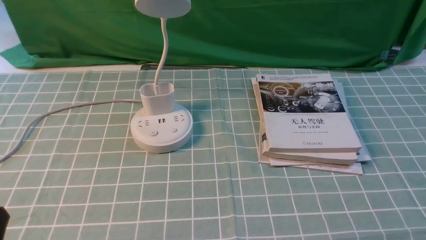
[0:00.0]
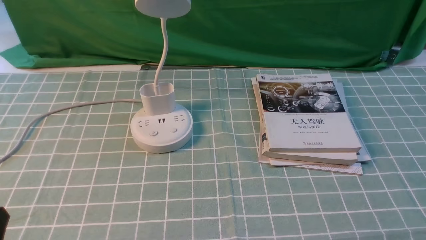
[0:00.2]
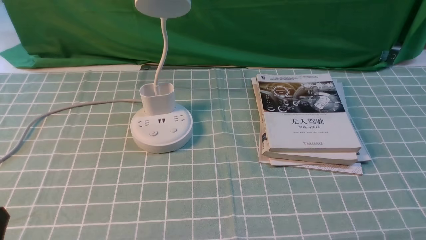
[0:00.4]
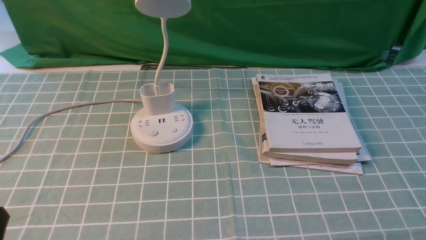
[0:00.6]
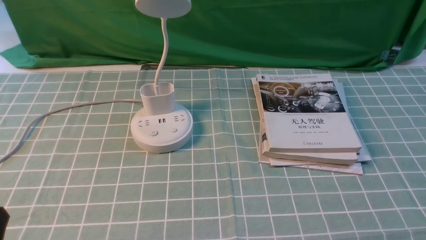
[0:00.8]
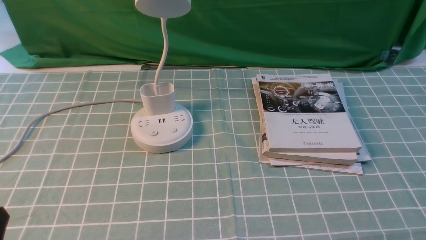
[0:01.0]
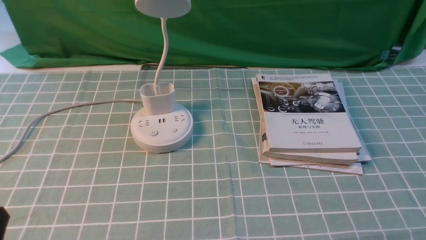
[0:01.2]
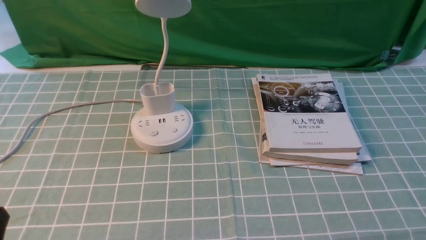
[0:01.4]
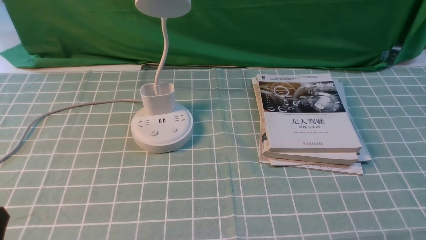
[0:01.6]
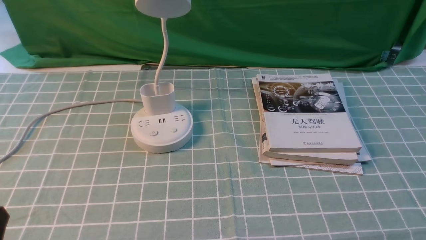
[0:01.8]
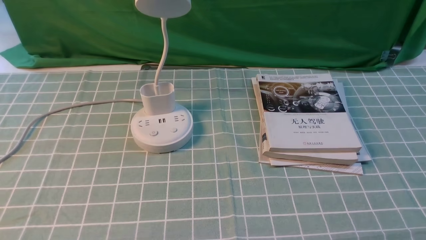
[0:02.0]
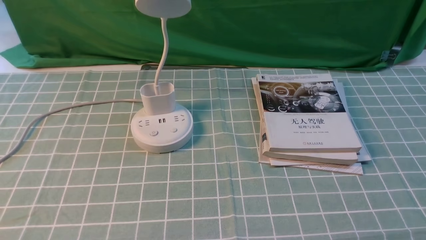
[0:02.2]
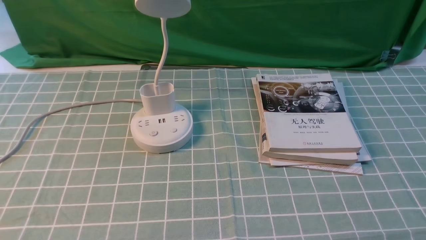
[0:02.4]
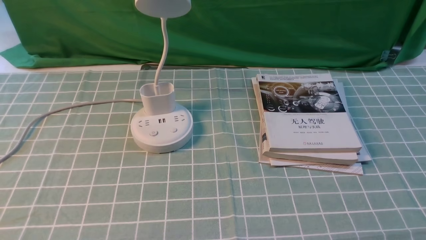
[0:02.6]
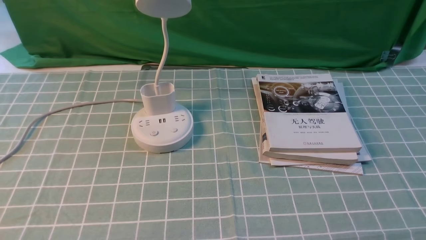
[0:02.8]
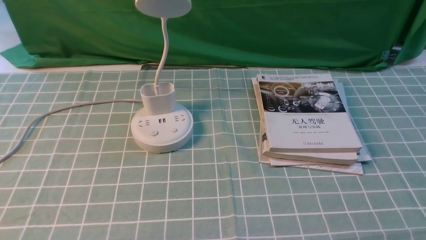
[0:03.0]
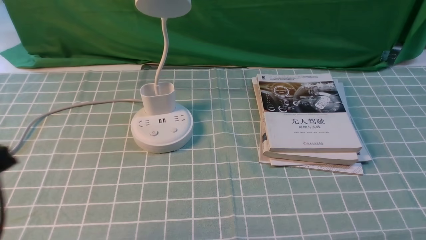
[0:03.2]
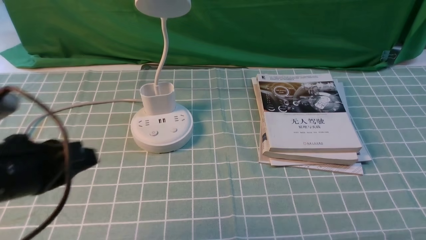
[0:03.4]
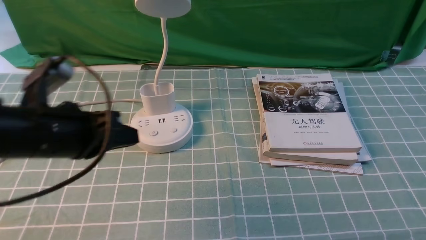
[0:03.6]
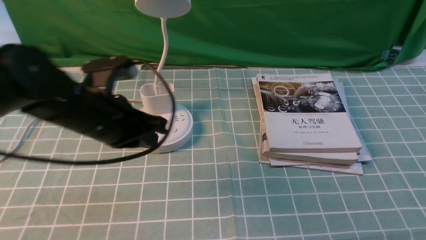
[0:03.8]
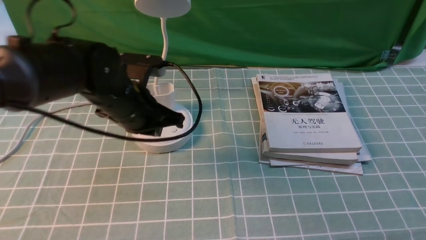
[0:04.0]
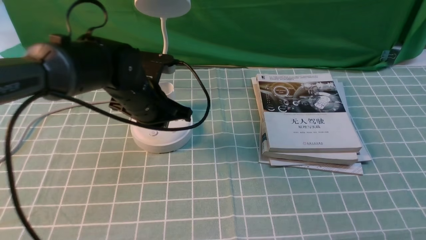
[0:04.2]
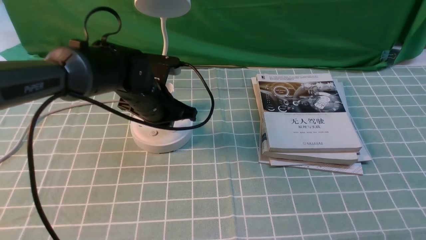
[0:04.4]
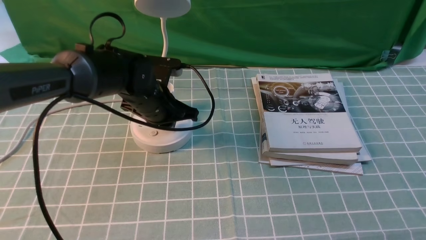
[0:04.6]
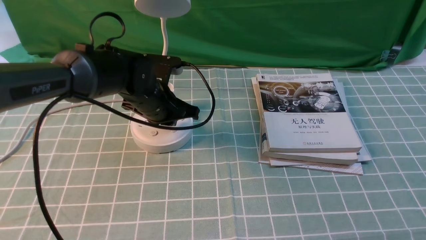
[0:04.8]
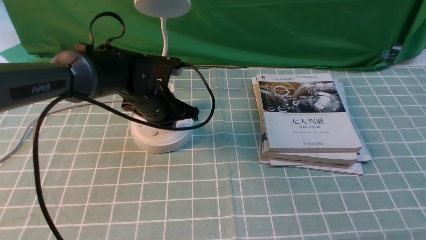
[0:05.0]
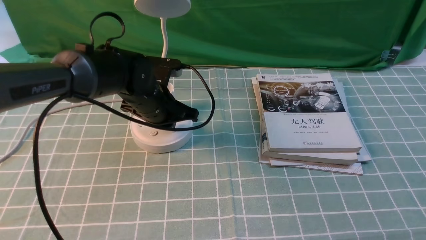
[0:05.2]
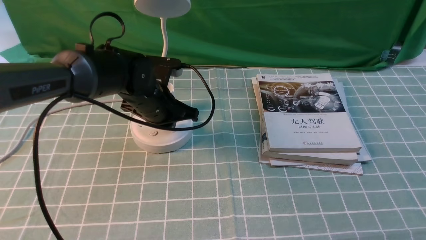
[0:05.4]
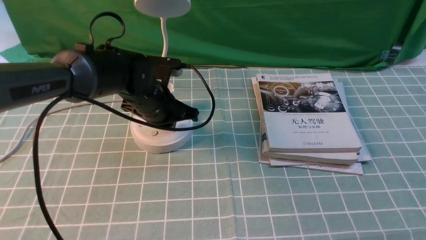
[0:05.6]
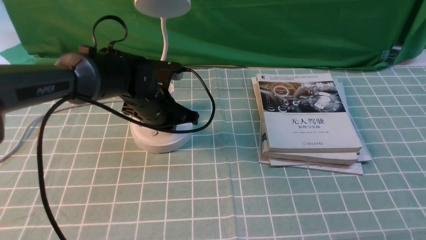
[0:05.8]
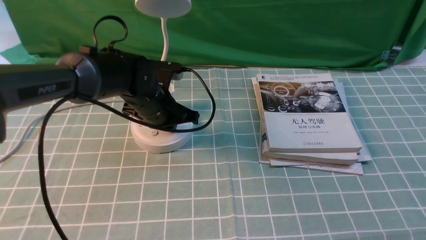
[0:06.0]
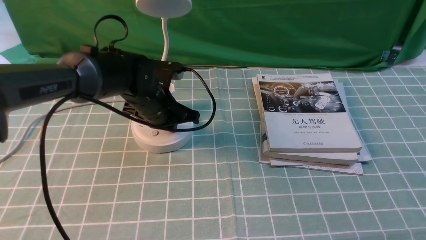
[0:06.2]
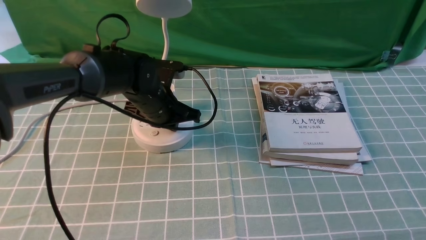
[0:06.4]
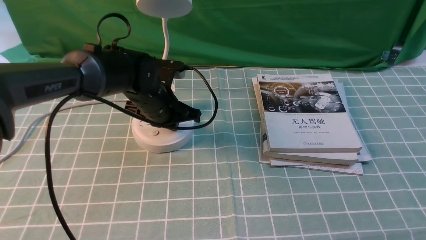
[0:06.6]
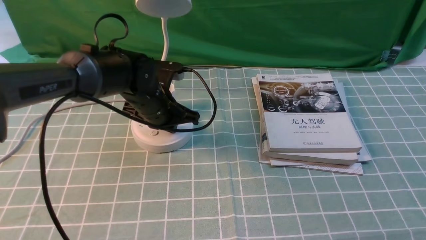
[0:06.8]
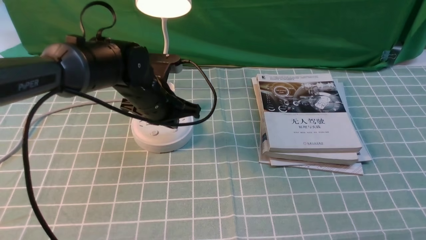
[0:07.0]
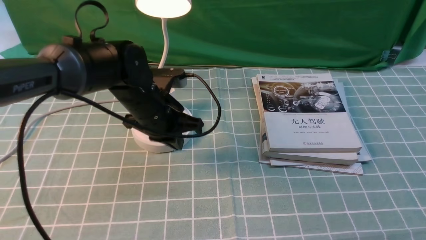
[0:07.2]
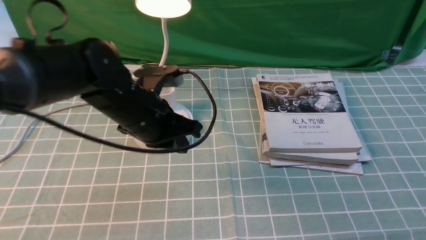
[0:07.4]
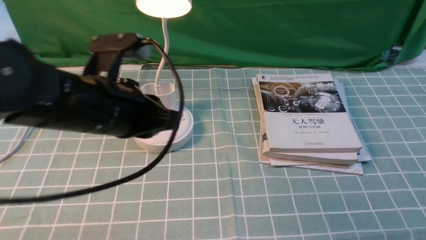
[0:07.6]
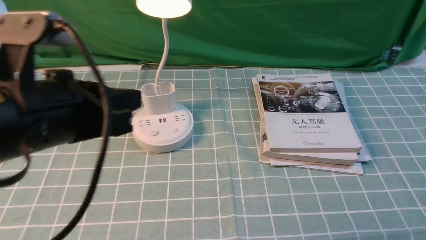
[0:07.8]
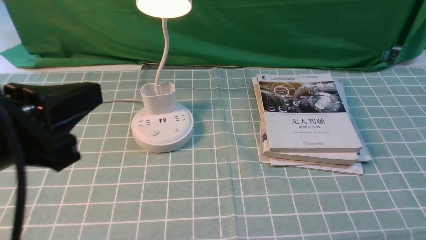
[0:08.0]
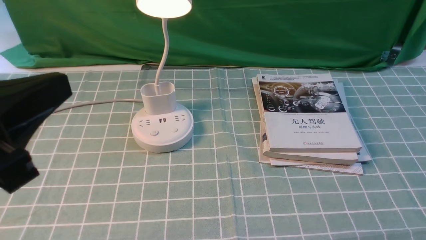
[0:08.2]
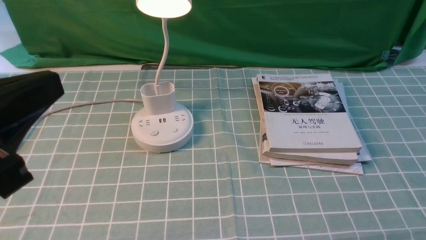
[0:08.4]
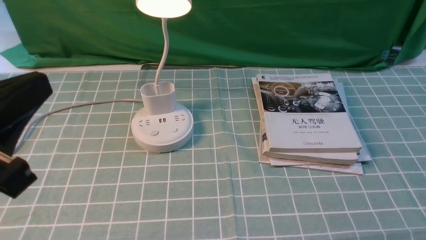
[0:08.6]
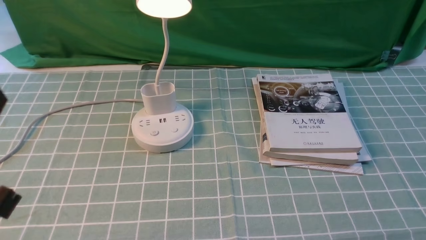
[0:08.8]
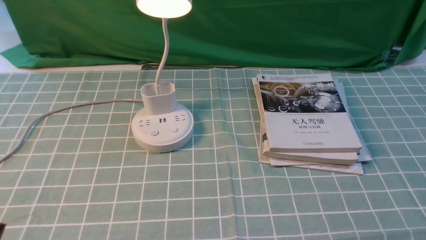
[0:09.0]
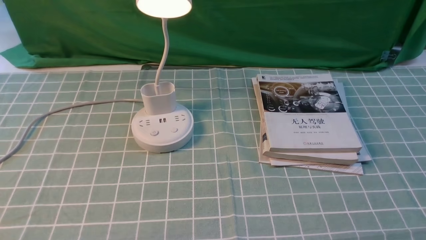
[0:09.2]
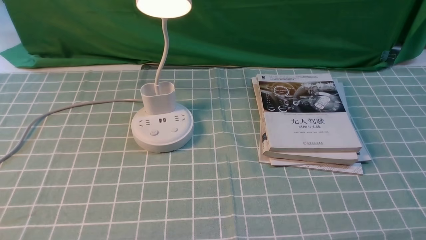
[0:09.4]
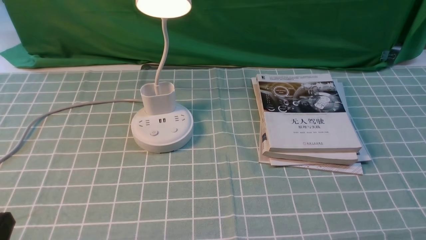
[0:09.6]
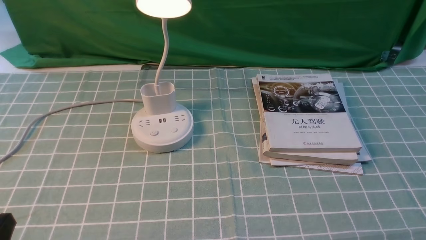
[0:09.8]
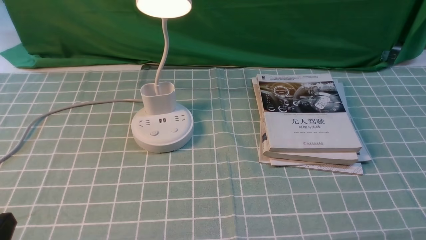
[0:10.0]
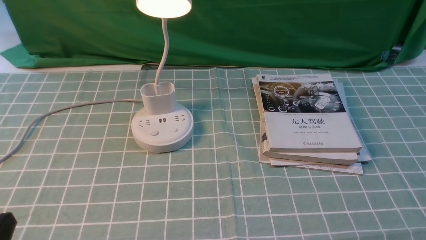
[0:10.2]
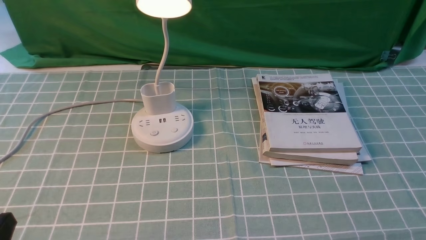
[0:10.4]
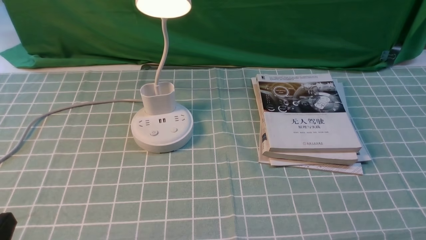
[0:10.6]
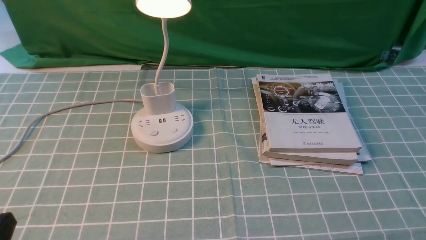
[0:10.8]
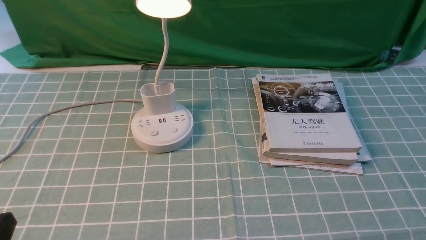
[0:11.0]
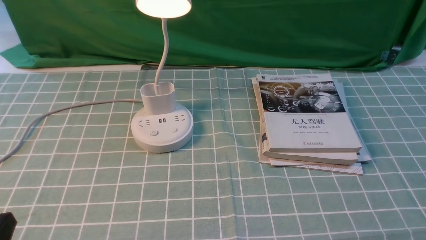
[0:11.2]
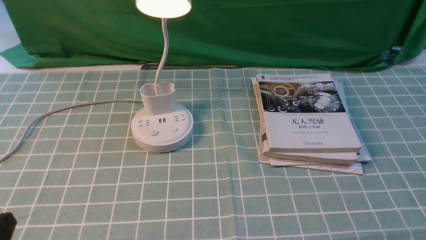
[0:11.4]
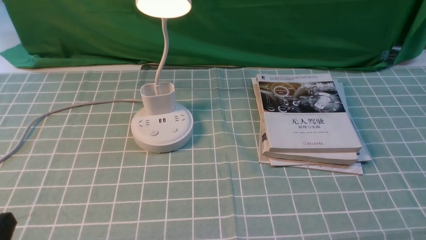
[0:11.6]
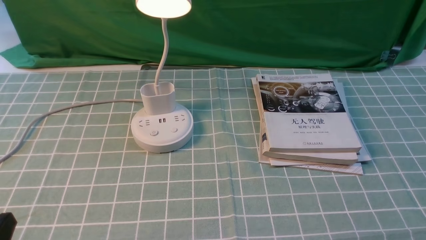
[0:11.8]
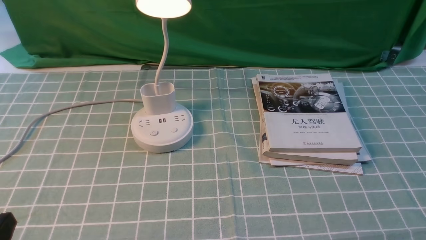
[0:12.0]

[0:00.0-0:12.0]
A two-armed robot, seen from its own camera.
Step, 0:00.0 to 0:07.0: use the left arm to press the button switch on the lamp holder.
0:00.0 to 0:01.6: The two grippers keep their place.
0:03.0 to 0:04.4: The left gripper moves forward, to the right and downward, roughly 35 cm, and closes its fingers.
0:04.4 to 0:06.0: The grippers stay close to where they were, moving slightly.
0:06.0 to 0:07.6: The left gripper is displaced backward and upward by roughly 20 cm.
0:07.6 to 0:09.0: The left gripper travels backward and to the left by roughly 20 cm.
0:10.4 to 0:12.0: Both grippers stay put.

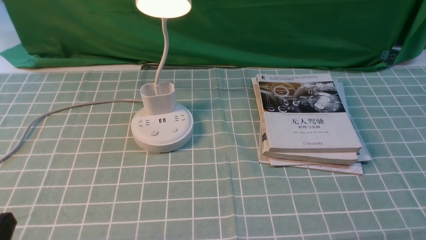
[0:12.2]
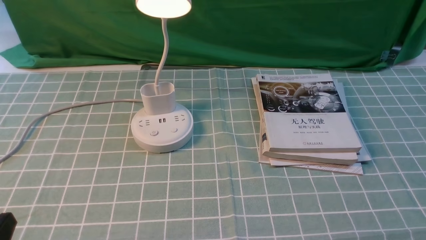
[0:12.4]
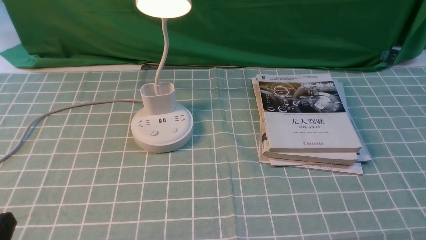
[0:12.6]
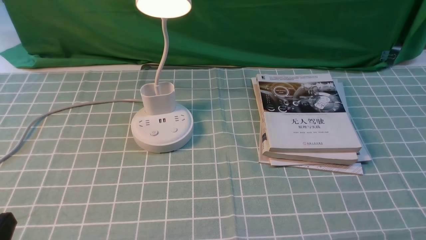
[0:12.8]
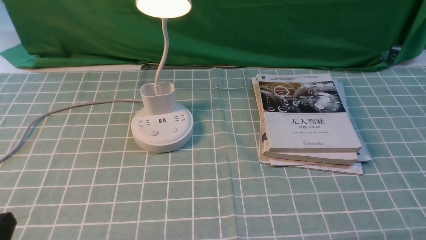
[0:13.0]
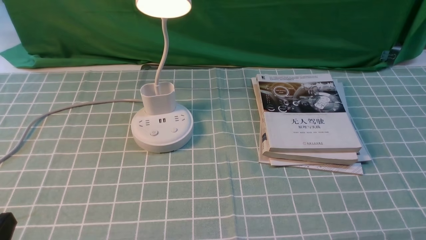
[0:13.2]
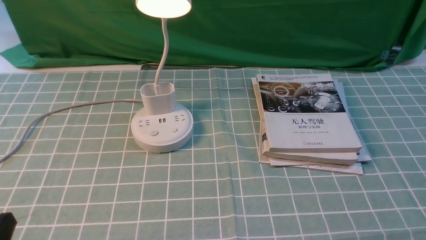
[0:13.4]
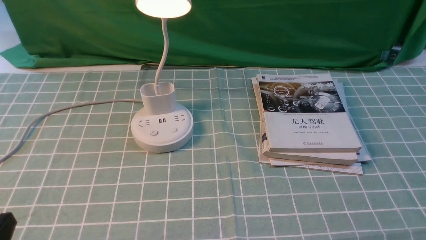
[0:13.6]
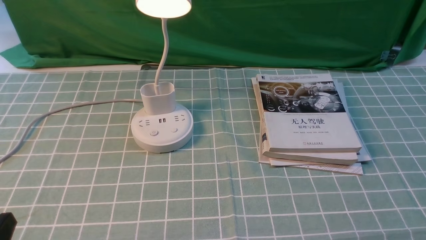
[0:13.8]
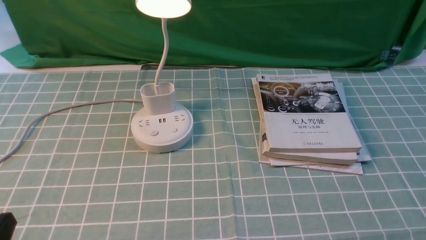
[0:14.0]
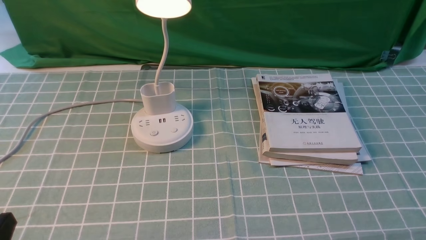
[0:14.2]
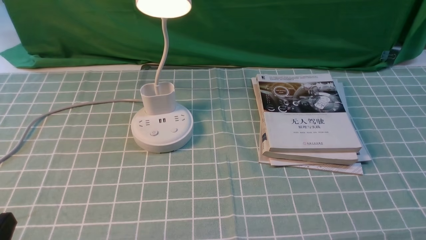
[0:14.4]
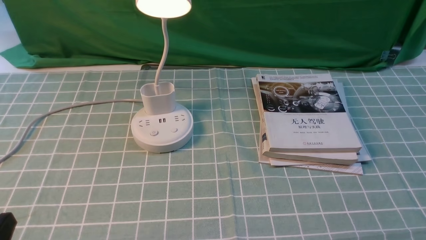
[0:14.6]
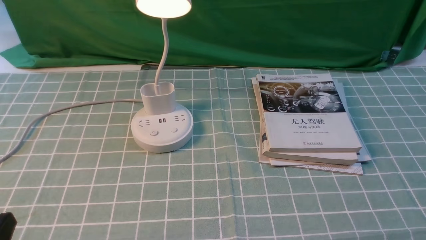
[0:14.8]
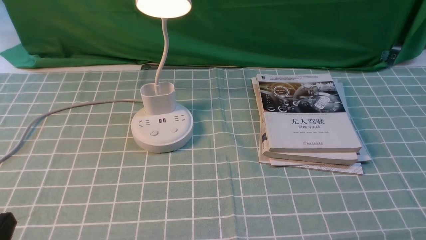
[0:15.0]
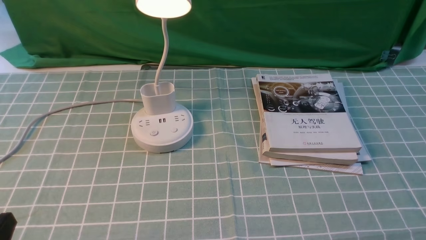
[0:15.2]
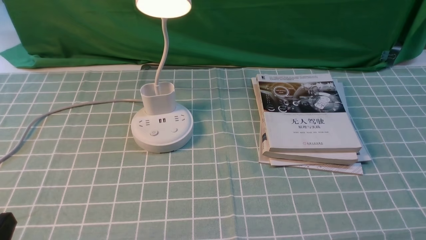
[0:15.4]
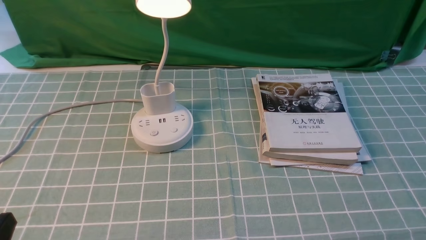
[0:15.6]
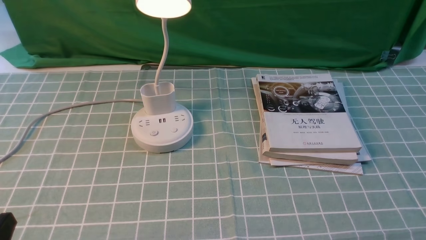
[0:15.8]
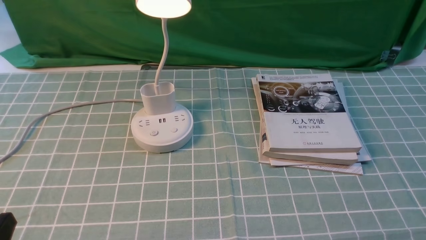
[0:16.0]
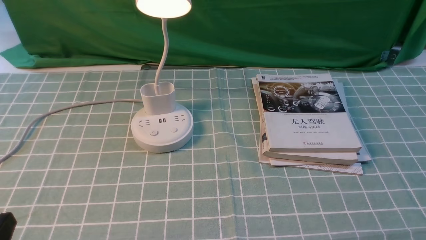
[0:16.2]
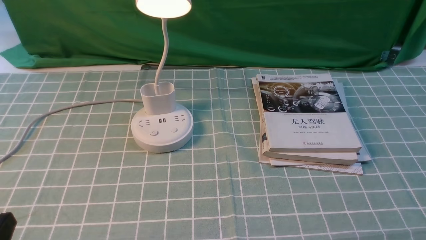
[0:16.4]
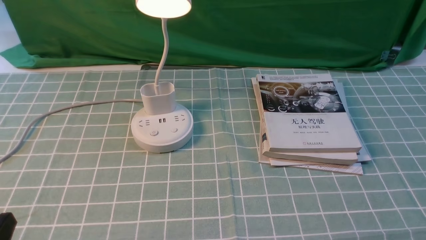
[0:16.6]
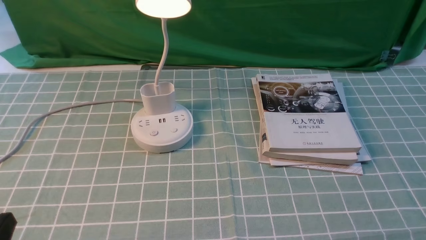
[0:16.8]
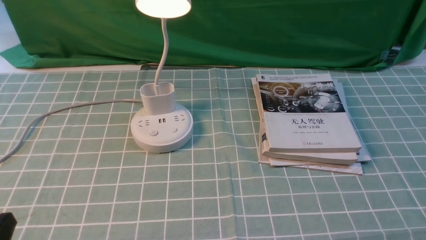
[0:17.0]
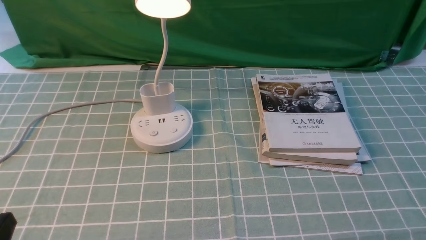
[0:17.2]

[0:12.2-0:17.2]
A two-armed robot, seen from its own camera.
0:12.2 to 0:17.2: Both grippers stay put.
